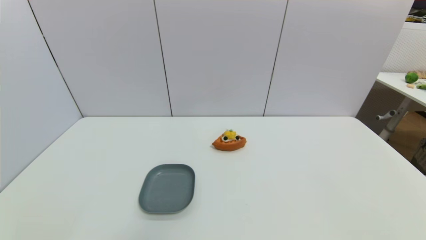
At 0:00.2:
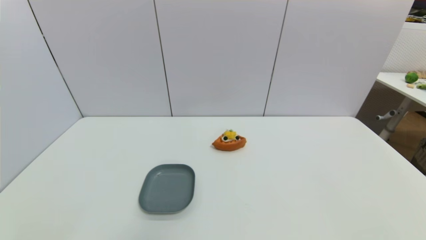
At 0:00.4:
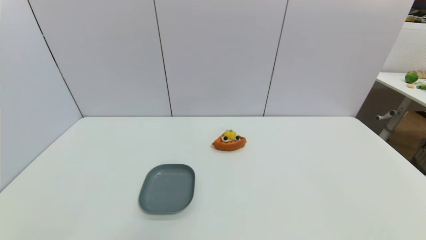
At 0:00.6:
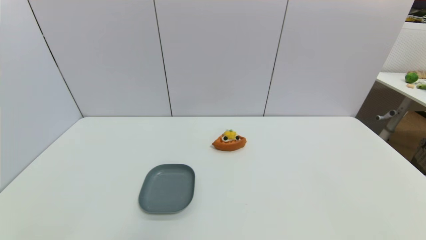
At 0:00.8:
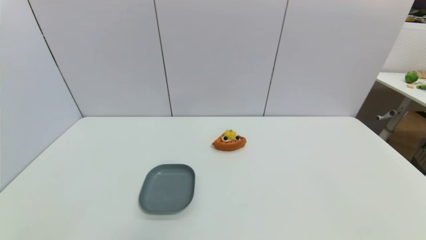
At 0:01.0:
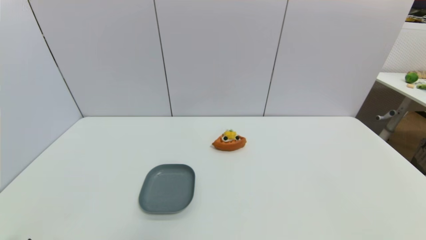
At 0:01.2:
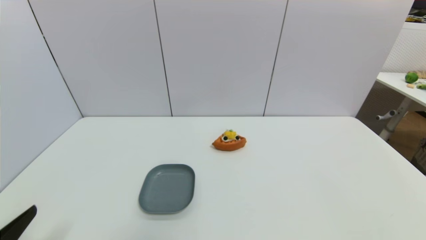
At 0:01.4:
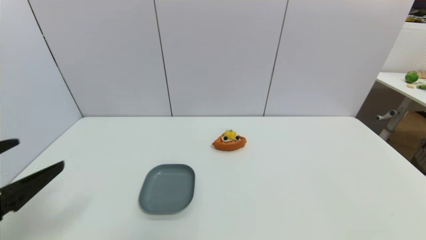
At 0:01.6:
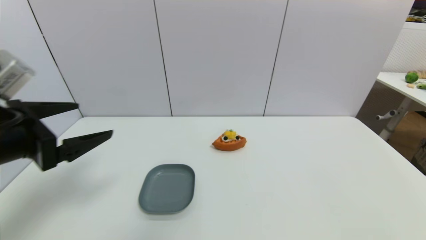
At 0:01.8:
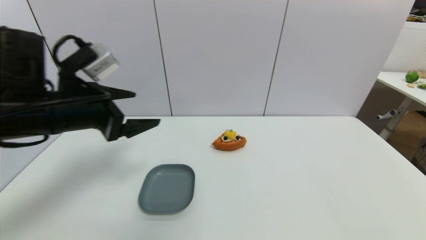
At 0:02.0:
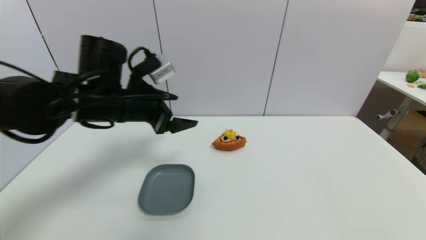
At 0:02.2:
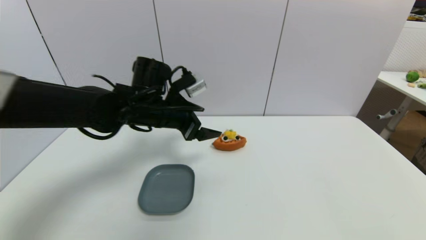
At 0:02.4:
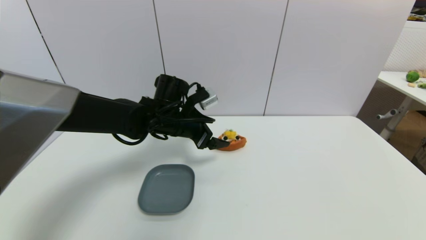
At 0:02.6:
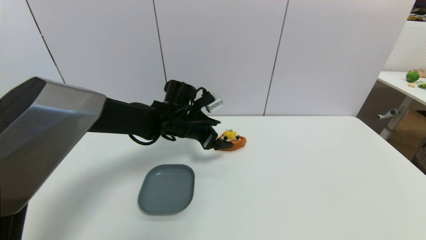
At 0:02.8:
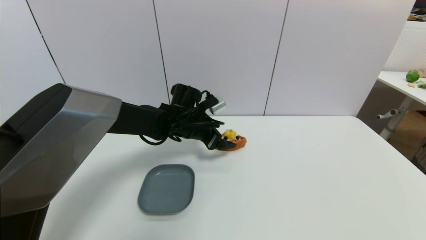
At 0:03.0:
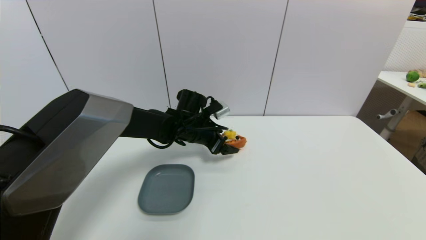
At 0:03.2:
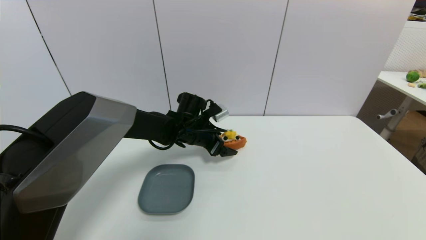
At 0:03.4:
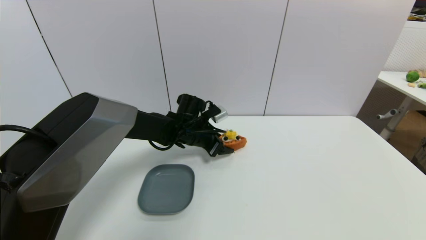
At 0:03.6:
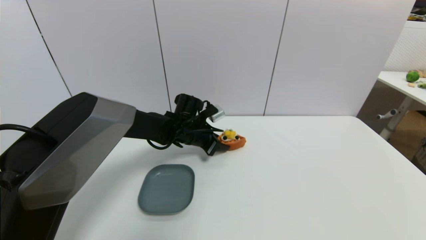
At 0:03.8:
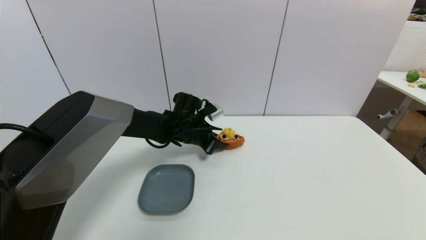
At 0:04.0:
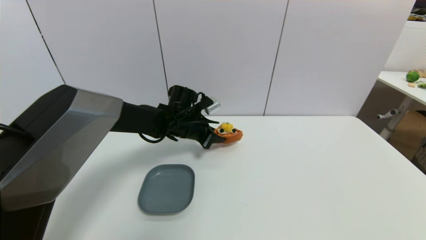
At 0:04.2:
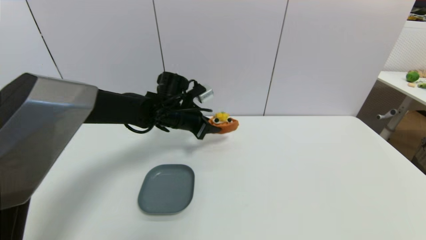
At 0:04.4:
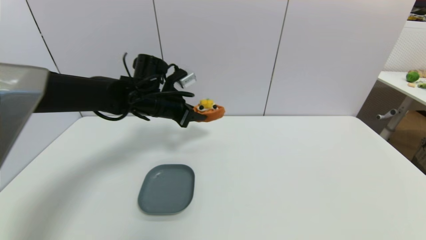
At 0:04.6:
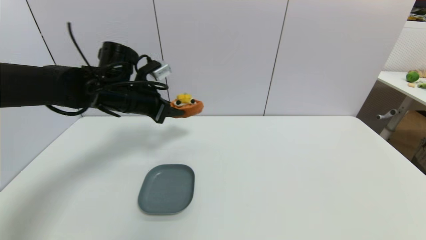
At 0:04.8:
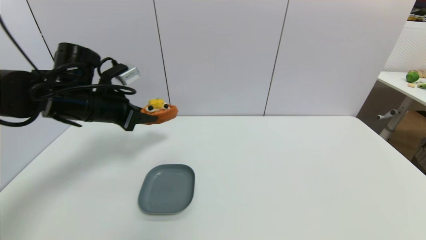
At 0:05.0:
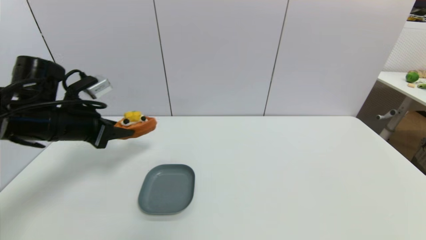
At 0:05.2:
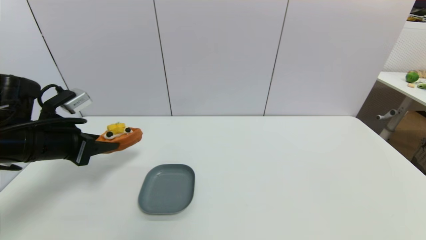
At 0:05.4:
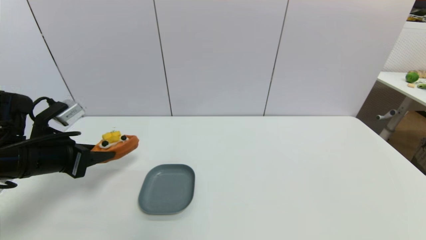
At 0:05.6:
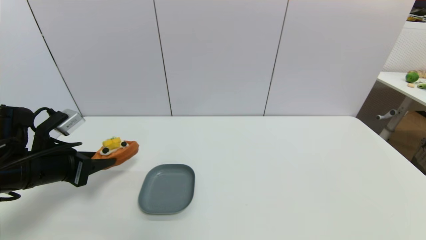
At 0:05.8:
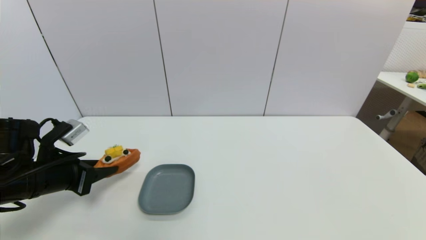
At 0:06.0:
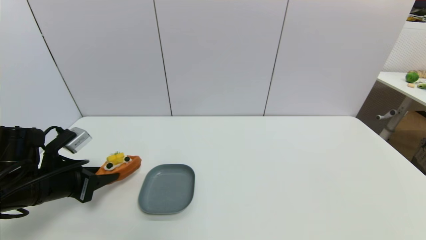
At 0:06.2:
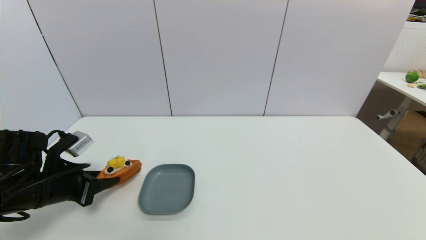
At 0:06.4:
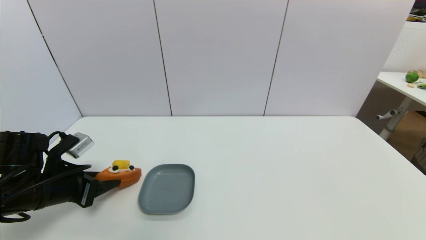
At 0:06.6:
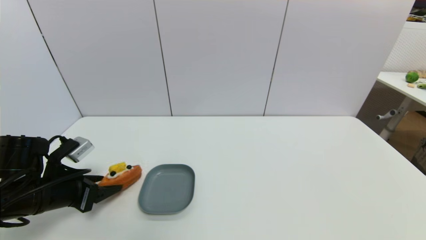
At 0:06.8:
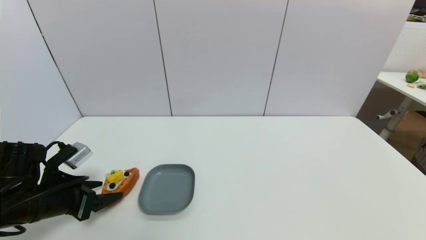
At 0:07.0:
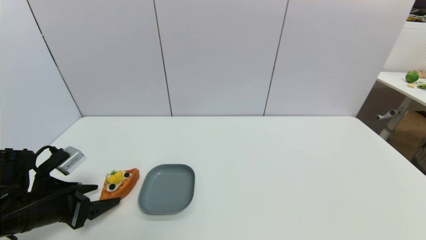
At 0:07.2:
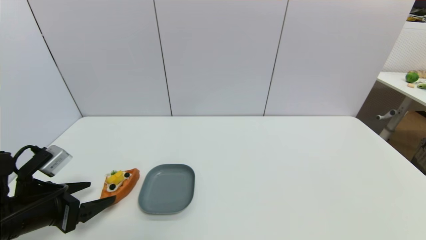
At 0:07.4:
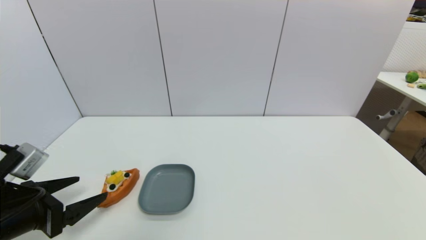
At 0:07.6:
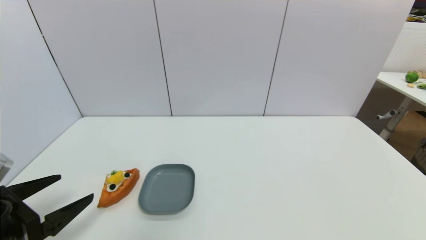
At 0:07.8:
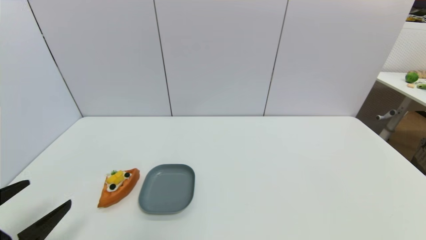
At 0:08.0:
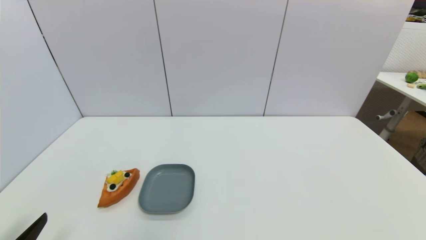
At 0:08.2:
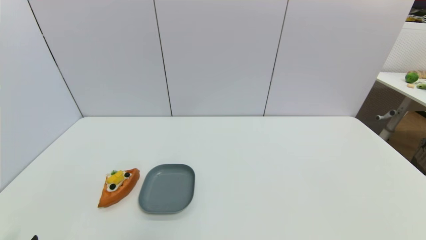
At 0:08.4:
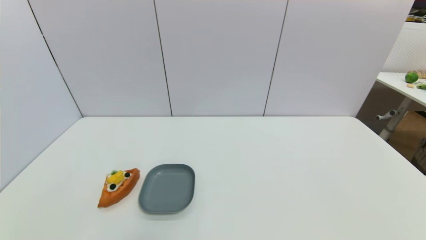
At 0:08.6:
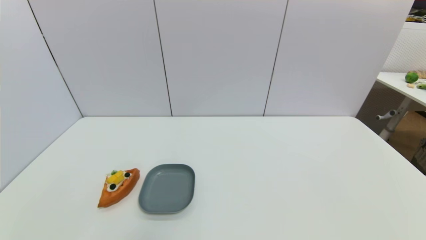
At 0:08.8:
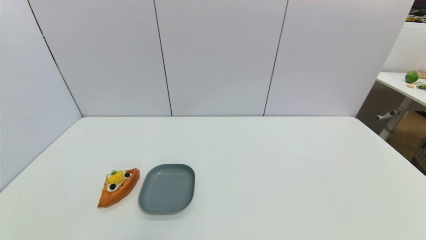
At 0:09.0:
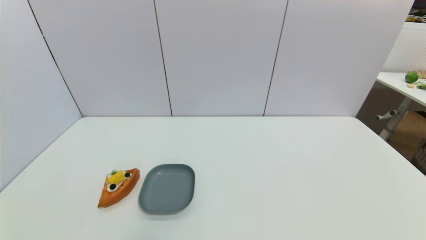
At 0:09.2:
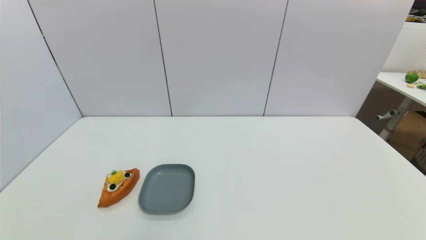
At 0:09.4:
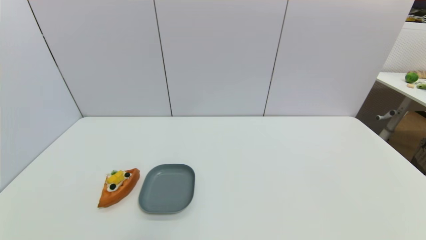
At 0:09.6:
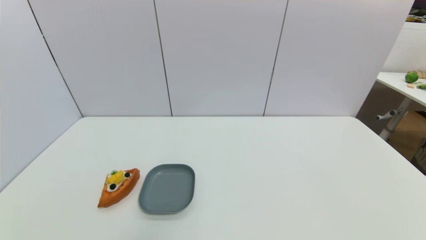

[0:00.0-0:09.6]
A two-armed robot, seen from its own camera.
Step, 0:01.0 to 0:03.8: Grasp the pizza with left gripper.
Step, 0:04.0 to 0:06.6: Place the pizza on the table with left gripper.
0:00.0 to 0:01.6: The left gripper travels upward and forward by roughly 25 cm.
0:01.6 to 0:03.2: The left gripper travels forward, to the right and downward by about 35 cm.
0:03.2 to 0:04.8: The left gripper is displaced to the left, upward and backward by some 25 cm, and closes.
0:04.8 to 0:06.4: The left gripper goes roughly 15 cm downward, backward and to the left.
0:06.4 to 0:08.0: The left gripper heads backward, covering some 20 cm, and opens its fingers.
